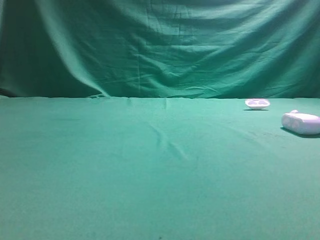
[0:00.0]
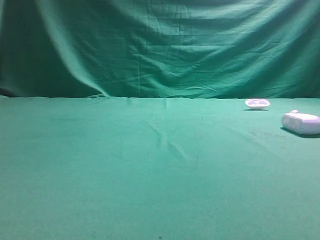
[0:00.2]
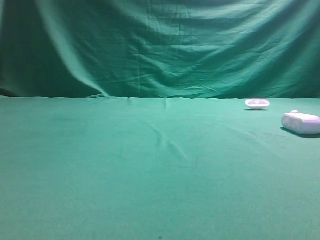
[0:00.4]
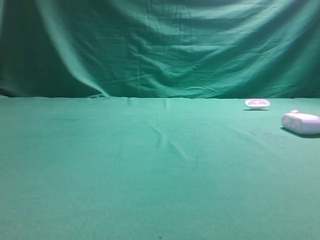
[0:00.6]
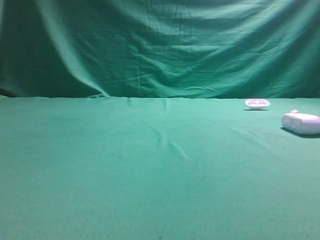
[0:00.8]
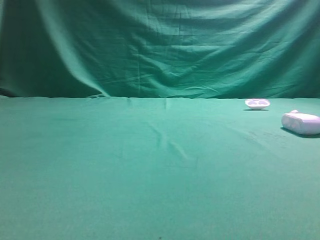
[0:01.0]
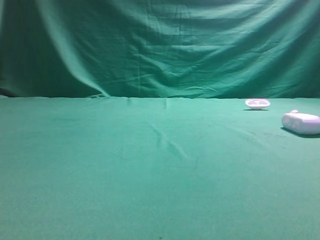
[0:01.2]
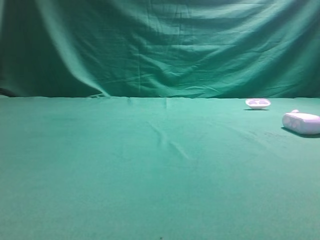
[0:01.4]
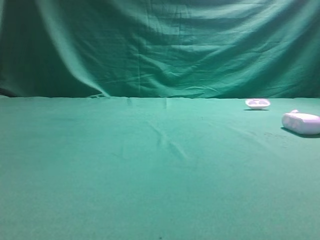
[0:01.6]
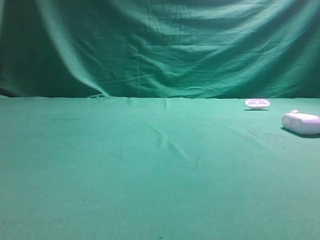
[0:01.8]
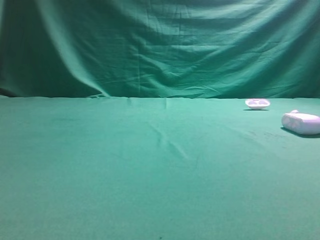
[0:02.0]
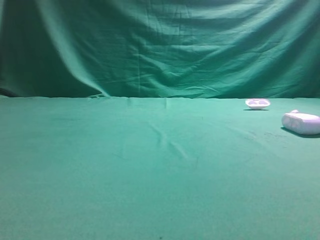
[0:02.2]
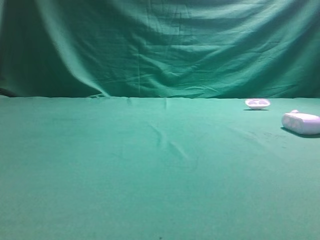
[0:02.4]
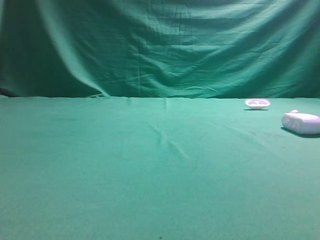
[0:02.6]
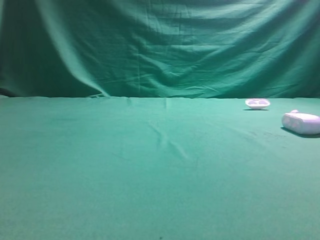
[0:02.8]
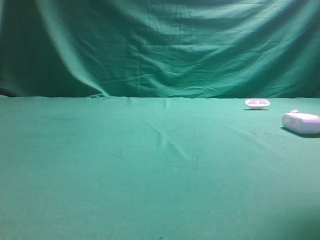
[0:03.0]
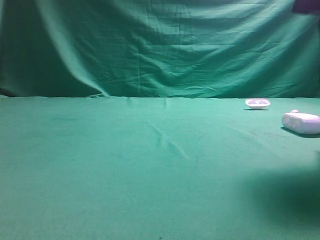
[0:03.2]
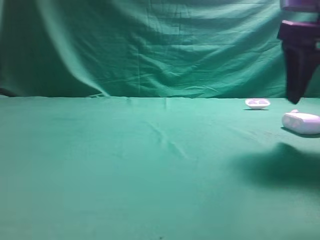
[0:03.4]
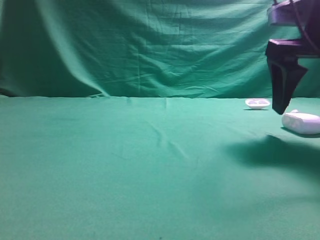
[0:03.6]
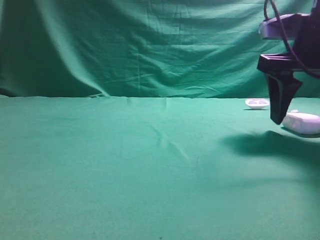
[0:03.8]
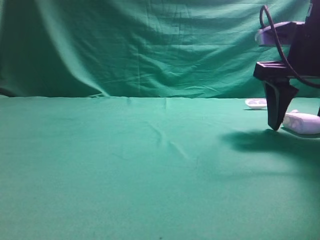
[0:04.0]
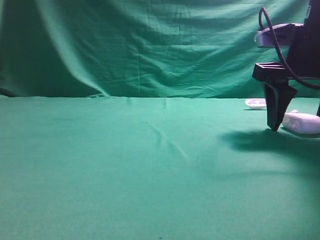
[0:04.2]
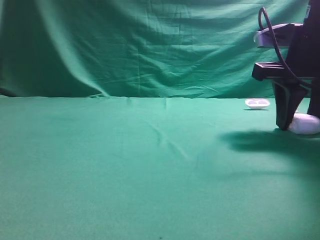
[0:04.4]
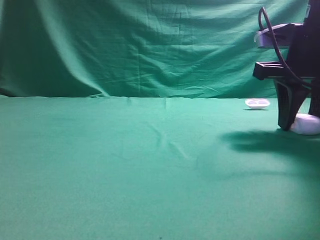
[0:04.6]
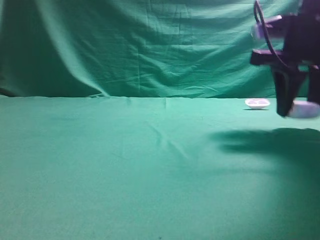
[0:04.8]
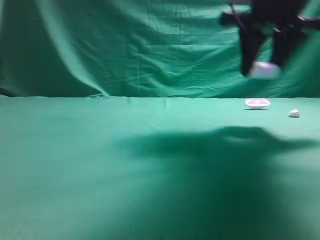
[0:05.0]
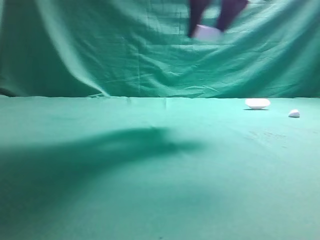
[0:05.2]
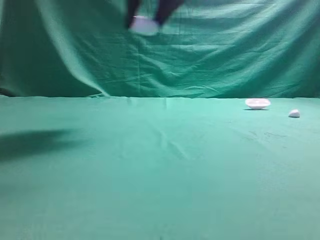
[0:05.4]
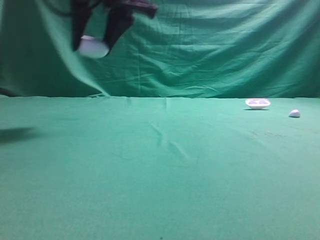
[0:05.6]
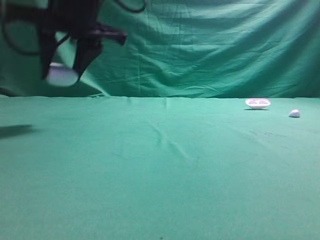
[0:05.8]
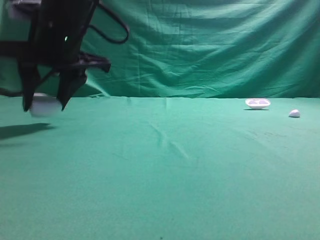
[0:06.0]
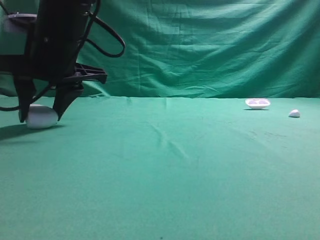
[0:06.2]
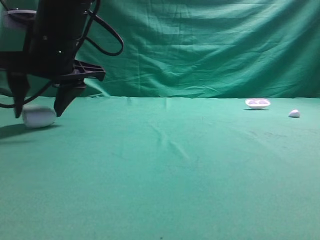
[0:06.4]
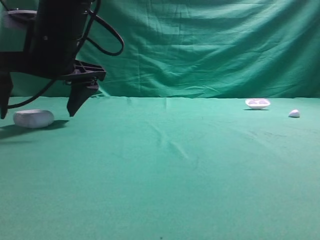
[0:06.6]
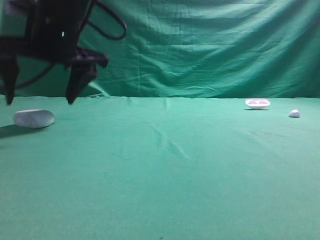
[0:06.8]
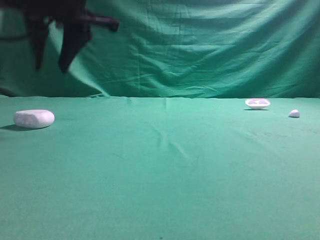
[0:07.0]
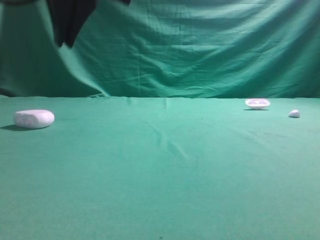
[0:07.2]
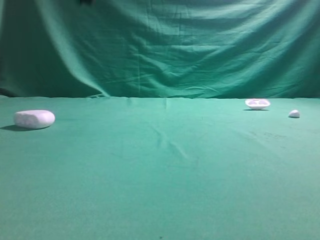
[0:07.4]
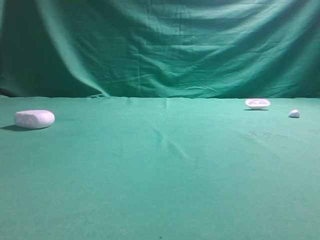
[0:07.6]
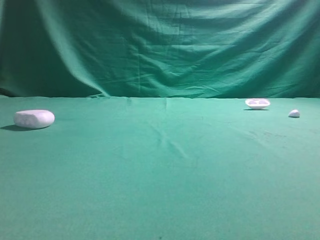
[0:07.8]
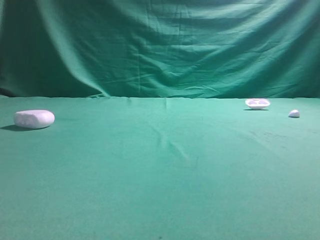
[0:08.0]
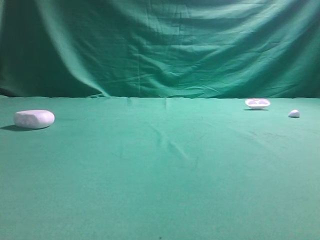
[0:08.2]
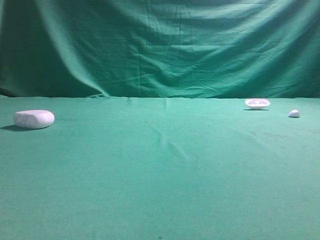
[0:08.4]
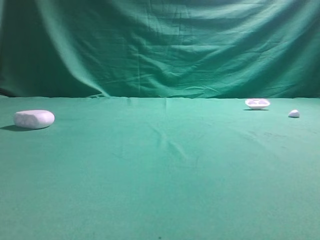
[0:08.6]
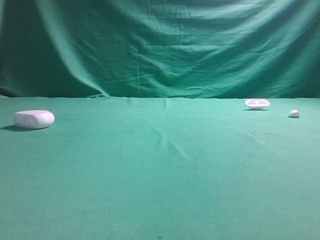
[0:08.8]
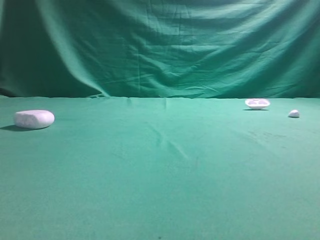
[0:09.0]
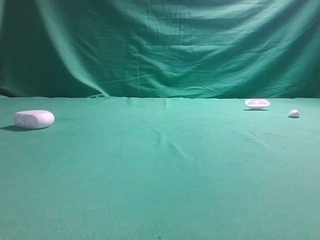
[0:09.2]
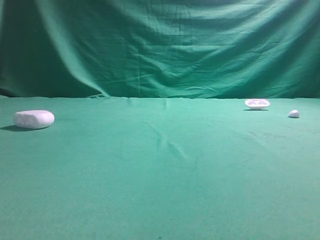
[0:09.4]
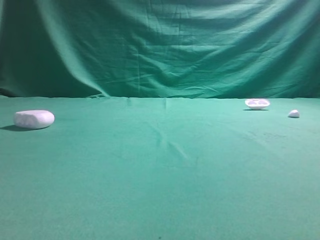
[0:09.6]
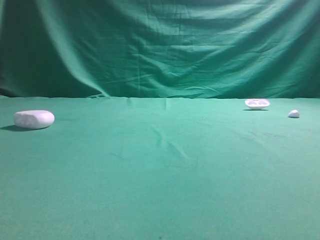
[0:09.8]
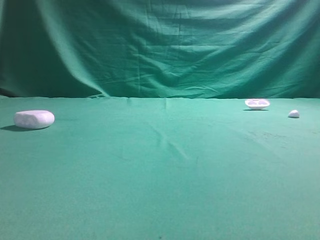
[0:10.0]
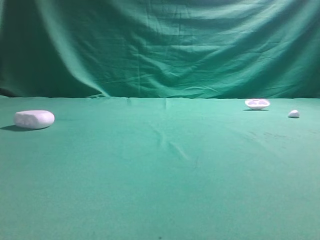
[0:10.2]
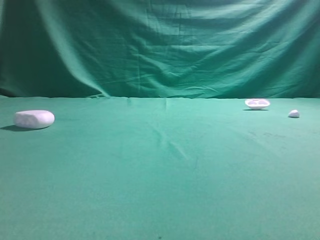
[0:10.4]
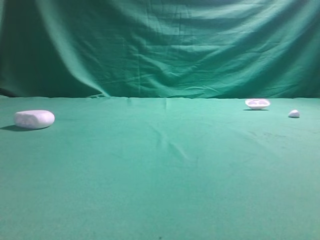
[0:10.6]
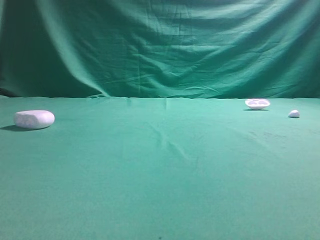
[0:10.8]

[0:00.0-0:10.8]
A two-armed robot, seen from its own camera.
Step, 0:00.0 to 0:05.0: Grasp the Bluetooth earphone case.
Step, 0:05.2 to 0:07.0: Place bluetooth earphone case on the left side of the table.
